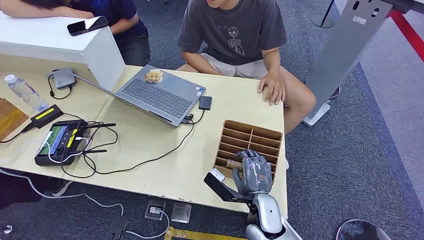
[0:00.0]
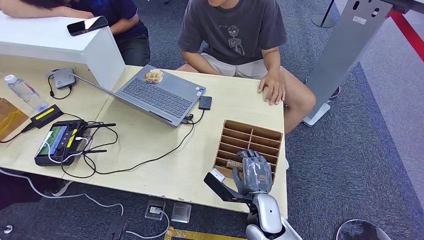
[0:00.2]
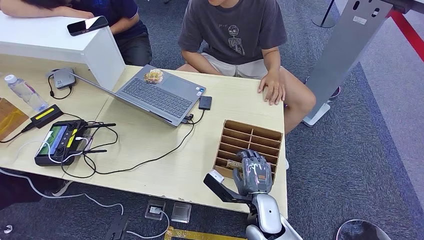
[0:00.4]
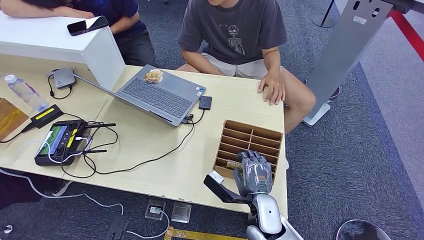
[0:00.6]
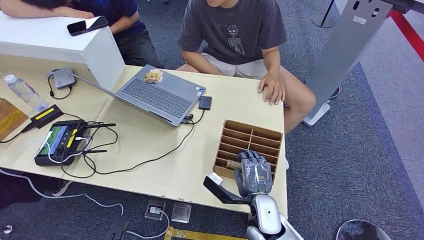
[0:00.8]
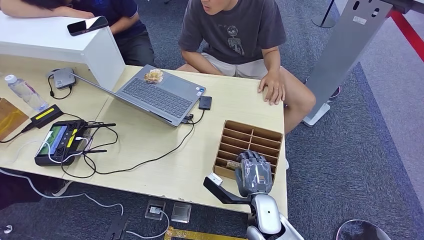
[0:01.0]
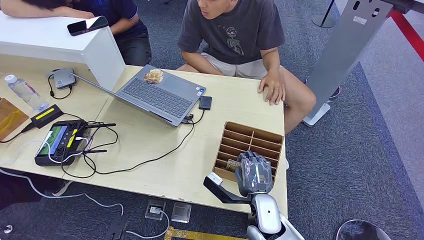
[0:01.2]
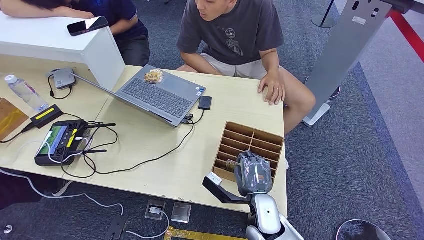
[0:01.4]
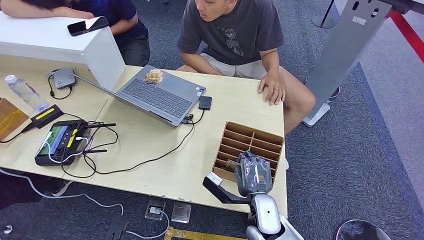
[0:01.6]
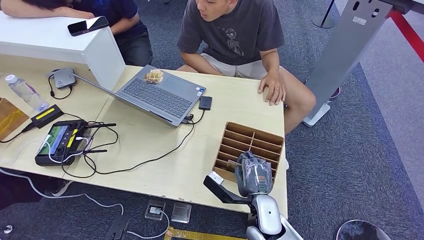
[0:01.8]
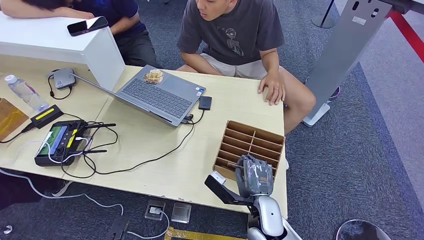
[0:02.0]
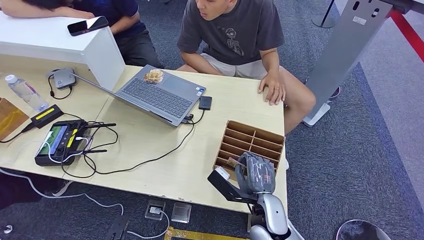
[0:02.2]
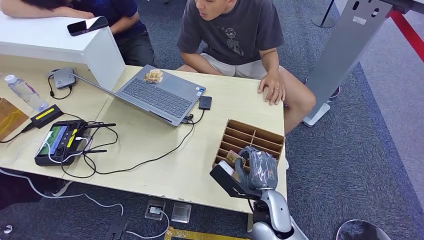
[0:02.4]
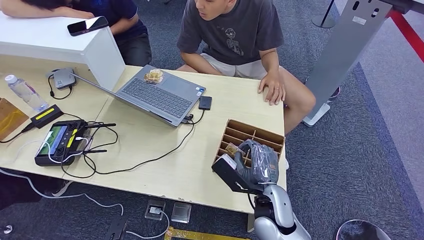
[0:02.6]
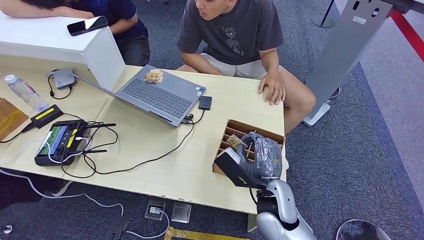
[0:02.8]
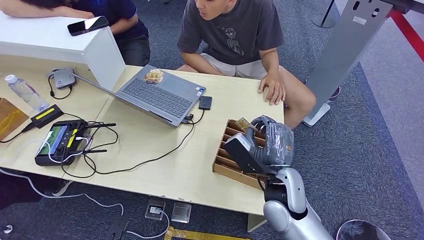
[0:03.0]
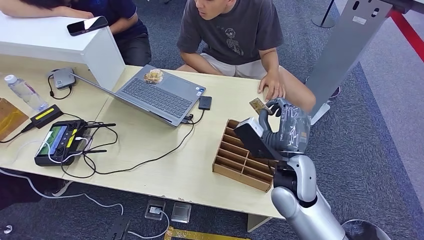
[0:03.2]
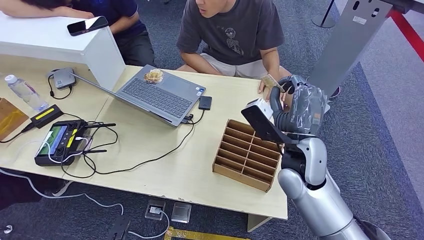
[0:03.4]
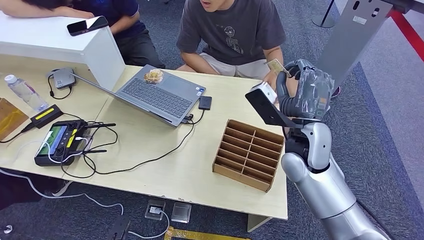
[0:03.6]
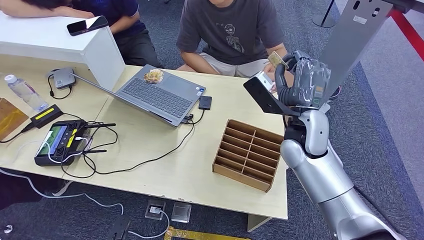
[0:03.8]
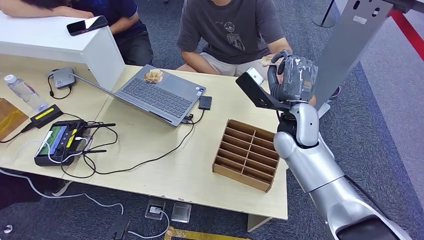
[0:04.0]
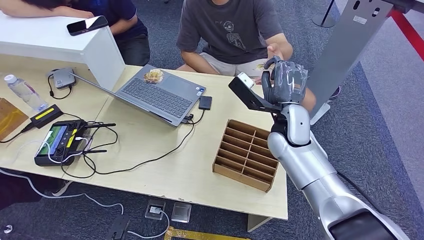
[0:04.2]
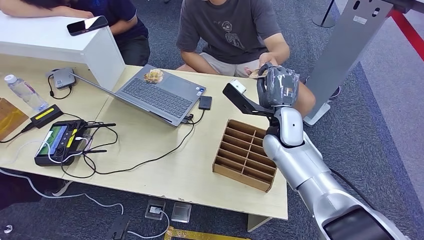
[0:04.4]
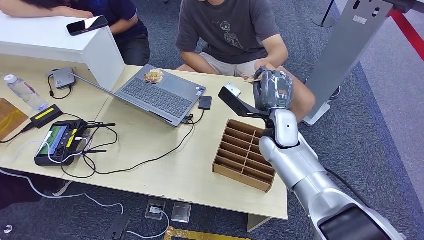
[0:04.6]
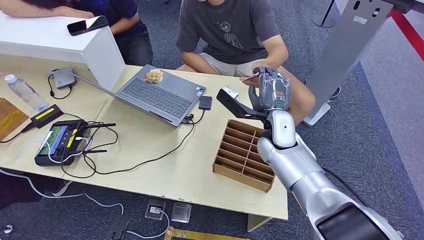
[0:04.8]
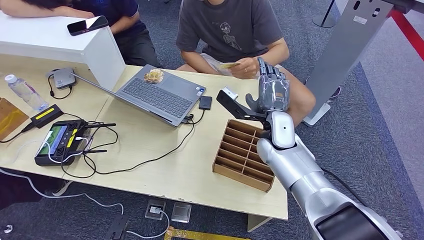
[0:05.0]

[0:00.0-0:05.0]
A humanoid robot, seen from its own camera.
Step, 0:00.0 to 0:02.6: Pick up the room card from the card holder.
Step, 0:03.0 to 0:05.0: Hand the room card to the target.
0:01.6 to 0:03.4: The right hand is displaced upward and forward by approximately 20 cm.
0:03.4 to 0:05.0: The right hand heads forward, covering some 10 cm.

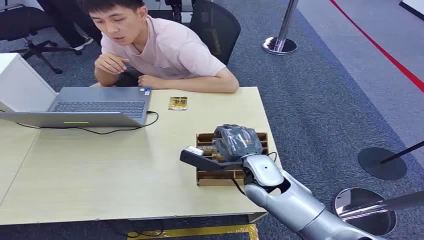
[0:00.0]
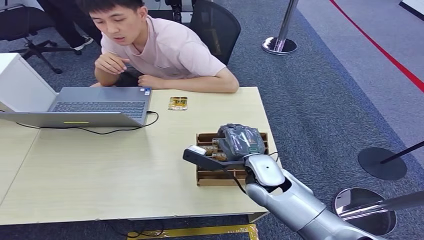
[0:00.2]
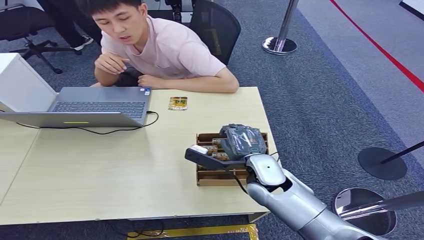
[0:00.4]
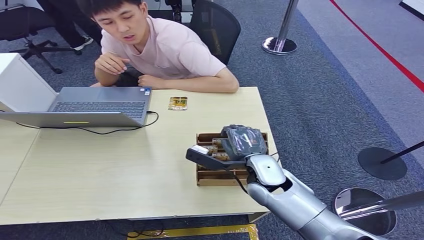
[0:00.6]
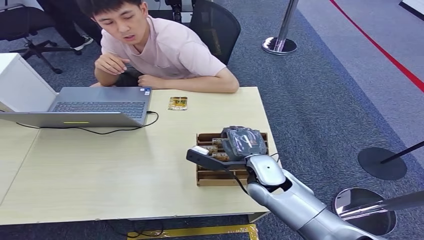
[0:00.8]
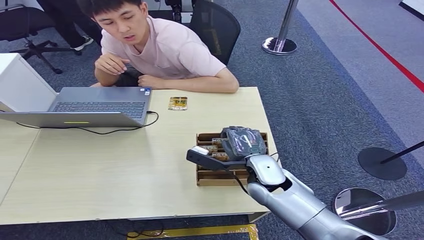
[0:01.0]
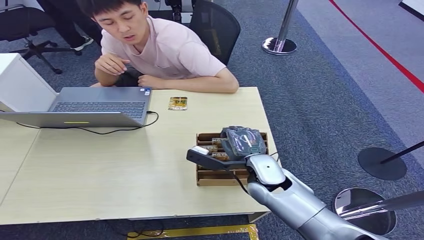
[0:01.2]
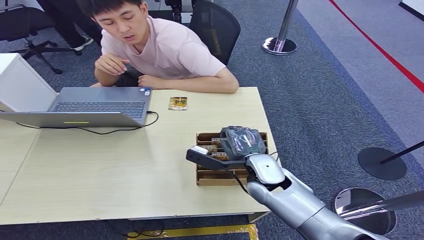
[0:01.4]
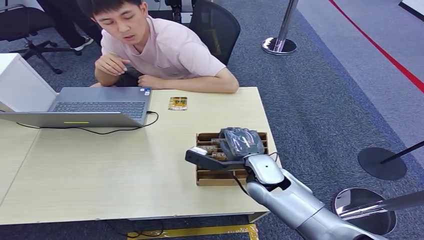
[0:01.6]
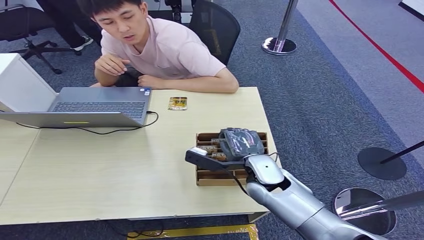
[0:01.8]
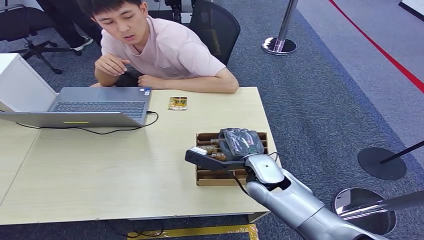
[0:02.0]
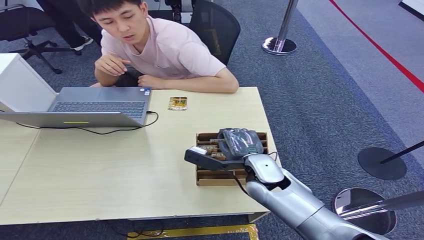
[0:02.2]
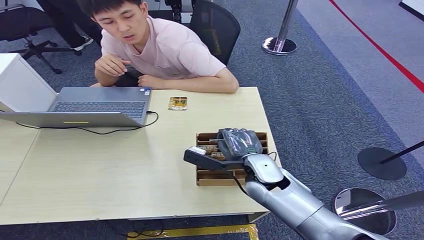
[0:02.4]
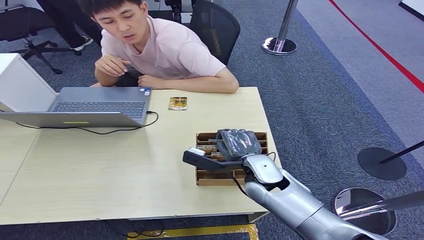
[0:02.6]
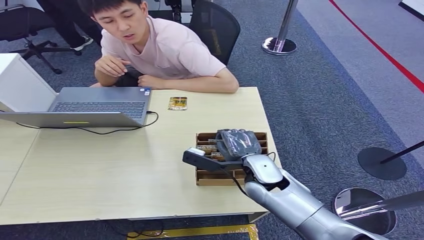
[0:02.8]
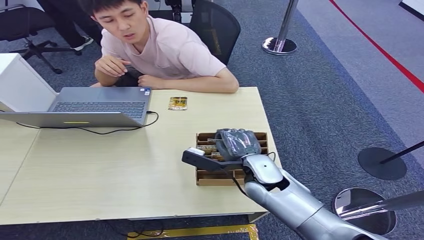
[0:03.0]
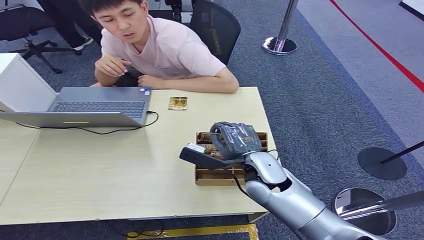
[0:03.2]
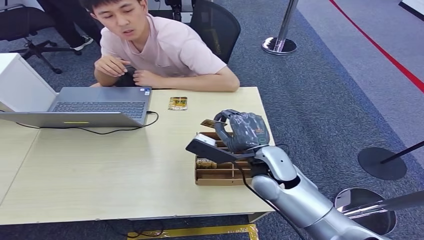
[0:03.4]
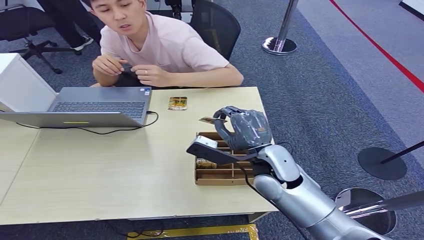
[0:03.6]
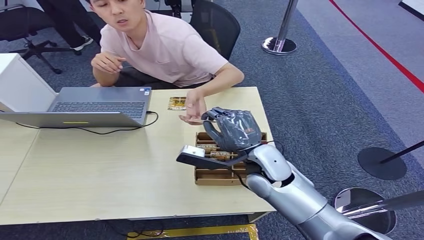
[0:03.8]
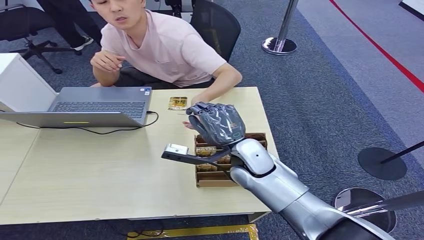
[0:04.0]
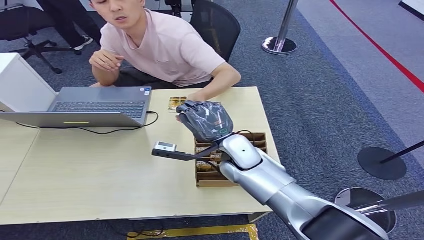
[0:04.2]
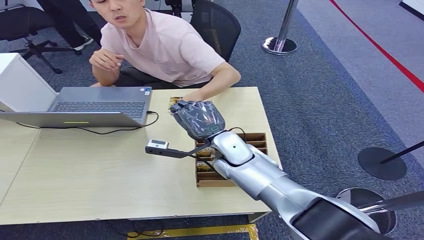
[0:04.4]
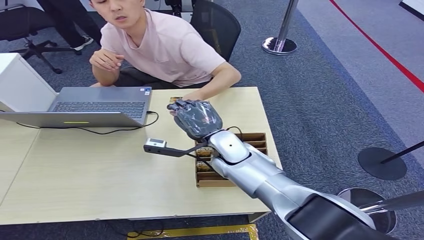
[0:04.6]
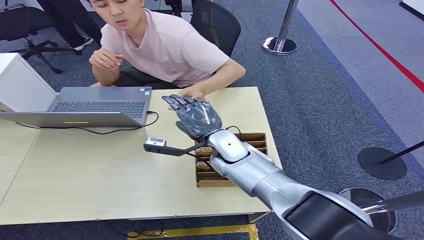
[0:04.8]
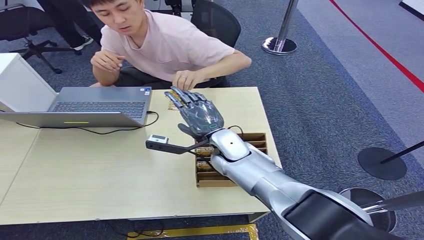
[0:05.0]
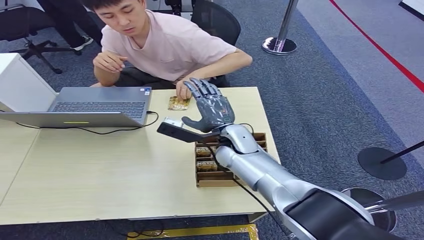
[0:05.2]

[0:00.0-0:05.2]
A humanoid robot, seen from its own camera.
Step, 0:00.0 to 0:03.2: Pick up the room card from the card holder.
Step, 0:03.4 to 0:05.2: Hand the room card to the target.
0:01.8 to 0:03.4: The right hand heads upward, covering some 5 cm.
0:03.4 to 0:05.2: The right hand goes roughly 10 cm forward and to the left.

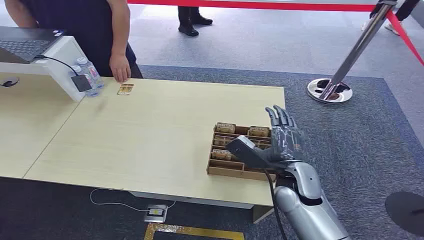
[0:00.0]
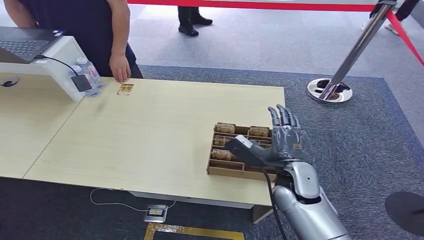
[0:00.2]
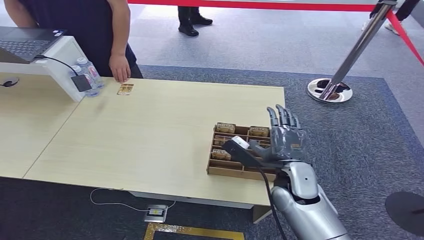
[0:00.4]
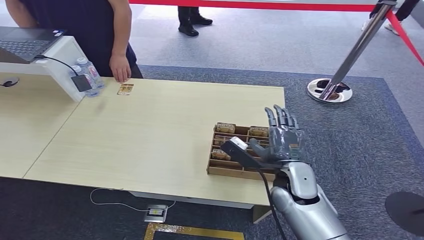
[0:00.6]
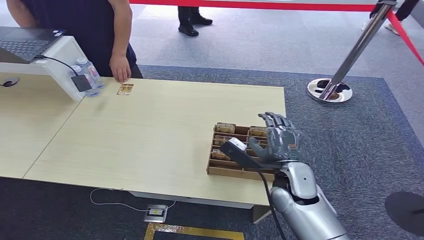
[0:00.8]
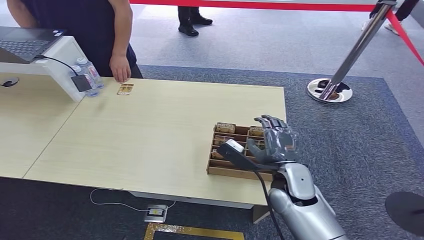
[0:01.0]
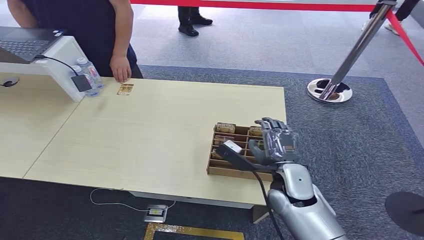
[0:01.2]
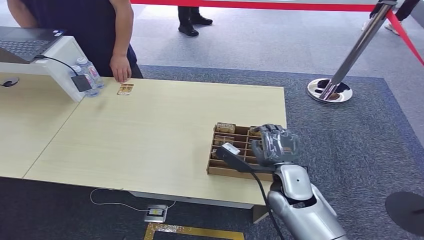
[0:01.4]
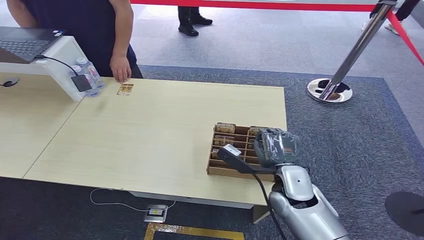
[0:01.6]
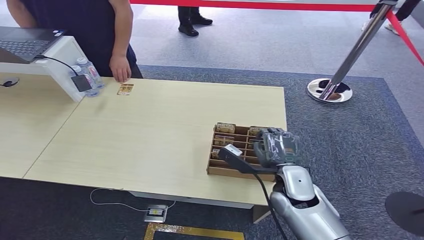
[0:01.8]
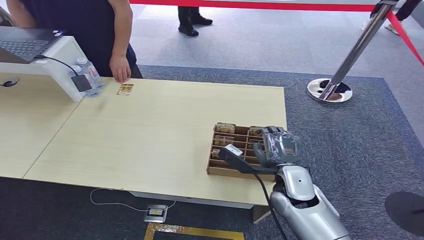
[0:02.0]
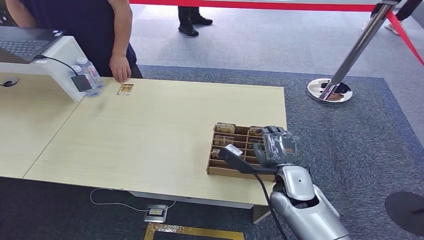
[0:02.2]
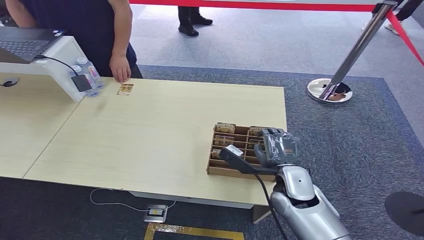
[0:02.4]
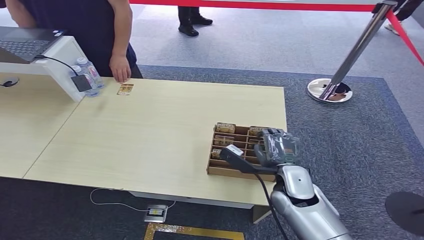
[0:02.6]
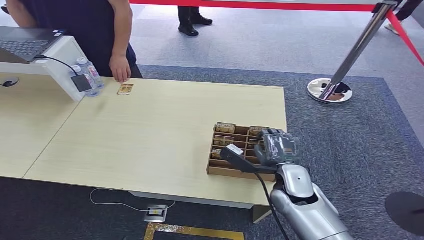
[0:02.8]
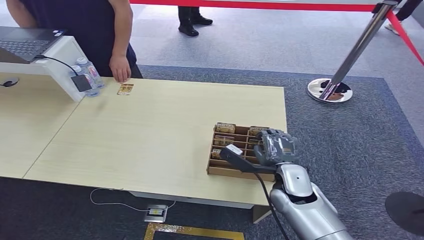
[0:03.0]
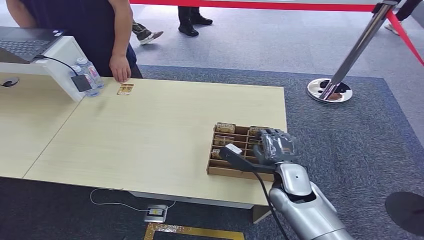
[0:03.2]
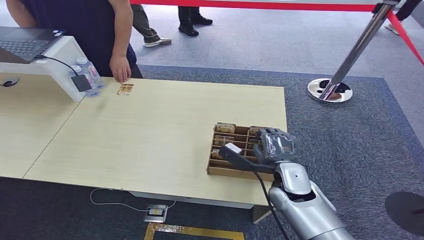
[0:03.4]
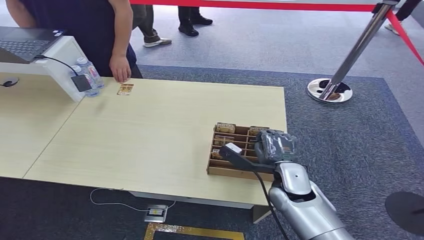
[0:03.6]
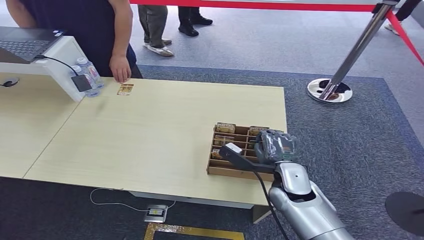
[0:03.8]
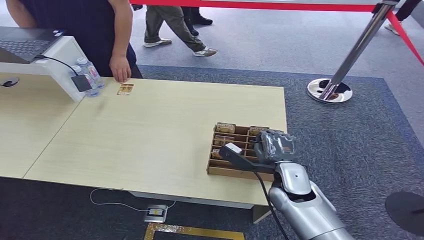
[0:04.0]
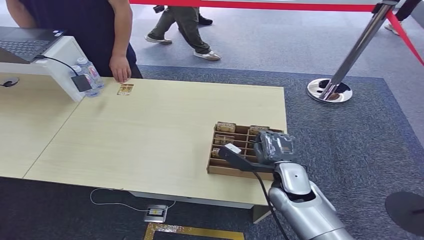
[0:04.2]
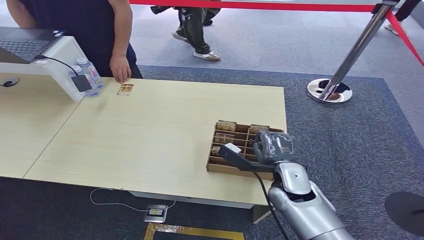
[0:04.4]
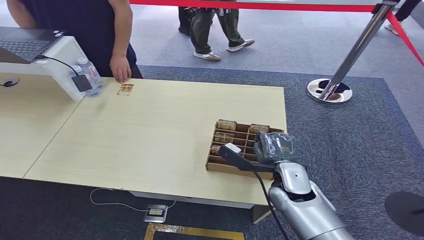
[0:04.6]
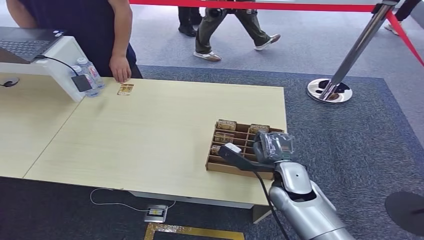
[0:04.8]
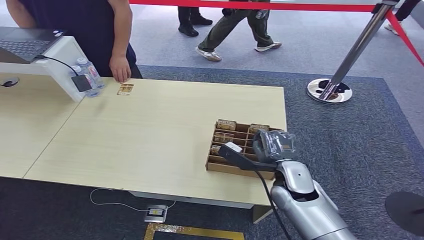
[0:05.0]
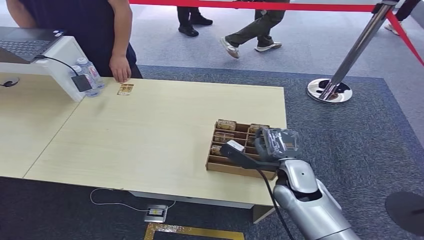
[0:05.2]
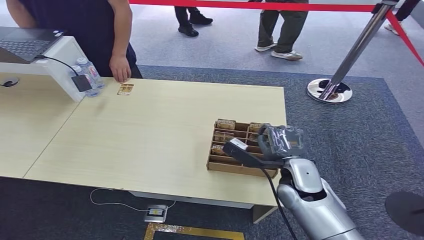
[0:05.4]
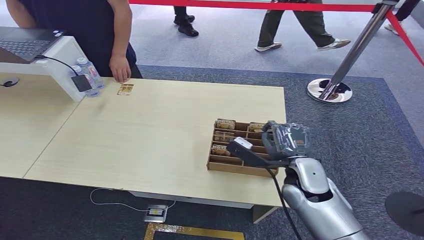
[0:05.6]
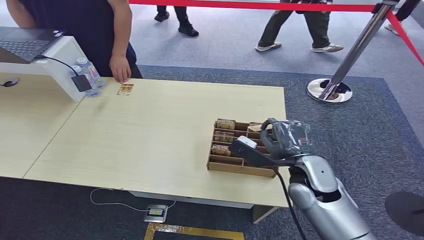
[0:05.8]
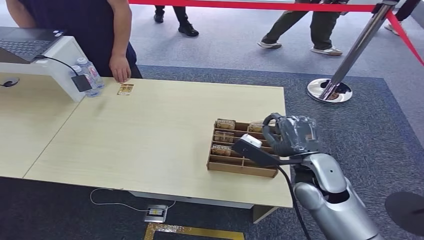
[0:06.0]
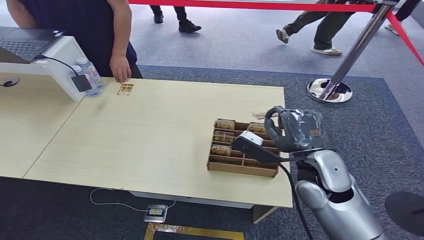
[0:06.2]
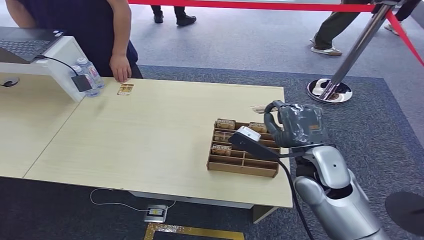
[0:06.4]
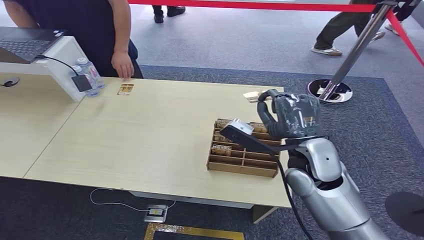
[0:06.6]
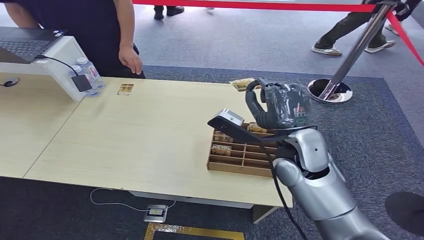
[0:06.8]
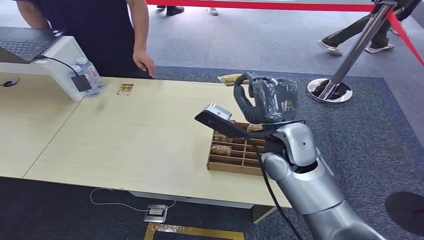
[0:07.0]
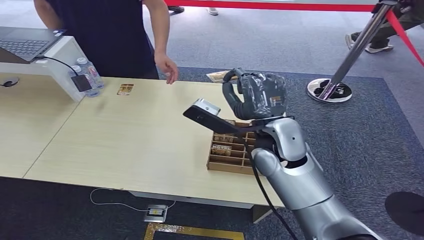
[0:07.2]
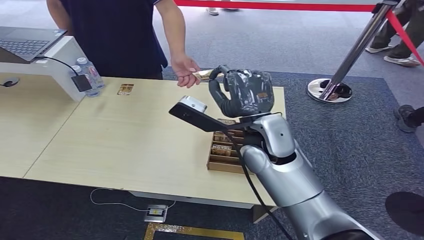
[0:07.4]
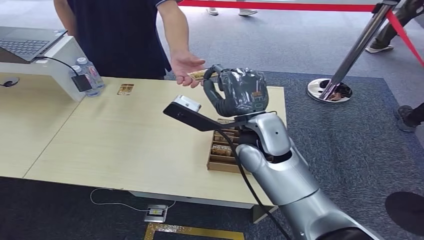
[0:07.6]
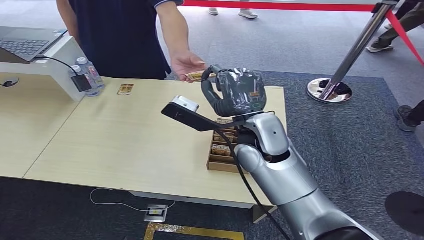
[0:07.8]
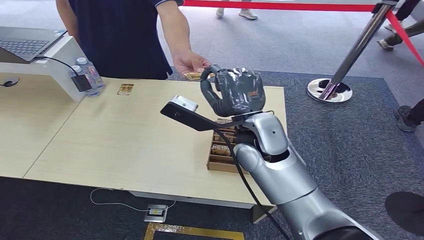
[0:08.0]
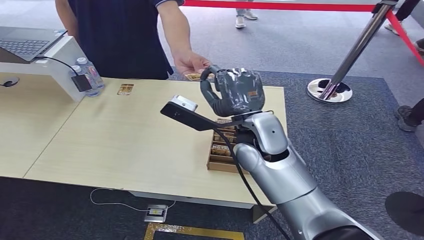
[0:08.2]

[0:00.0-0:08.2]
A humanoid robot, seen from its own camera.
Step, 0:00.0 to 0:05.2: Pick up the room card from the card holder.
0:01.6 to 0:03.2: The hands stay close to where they were, moving slightly.
0:03.2 to 0:05.0: Neither hand changes place.
0:05.0 to 0:06.6: The right hand shifts roughly 10 cm upward.
